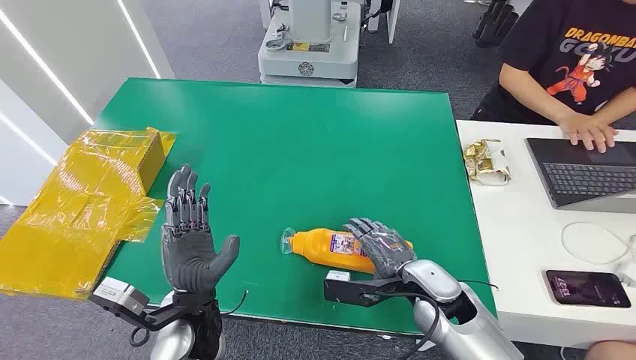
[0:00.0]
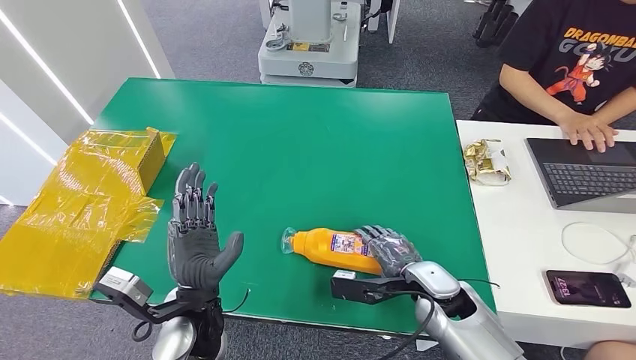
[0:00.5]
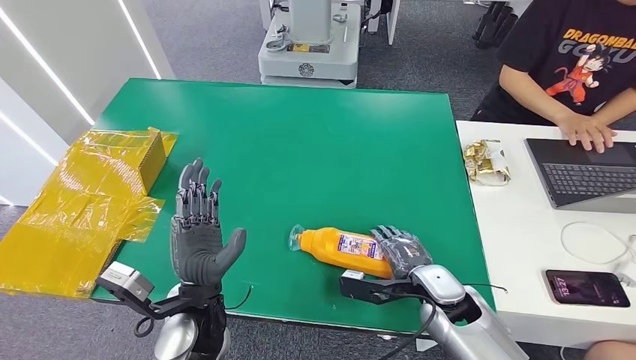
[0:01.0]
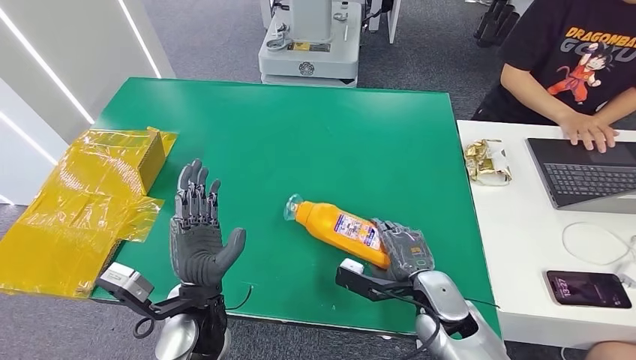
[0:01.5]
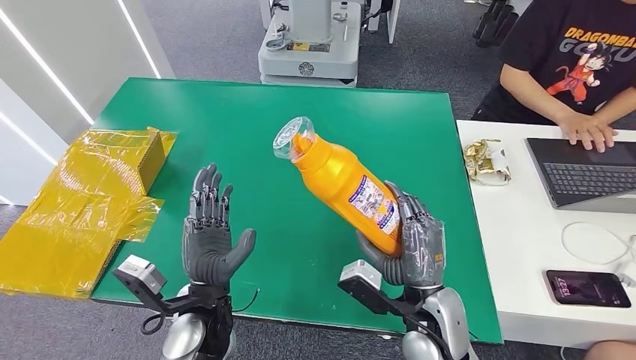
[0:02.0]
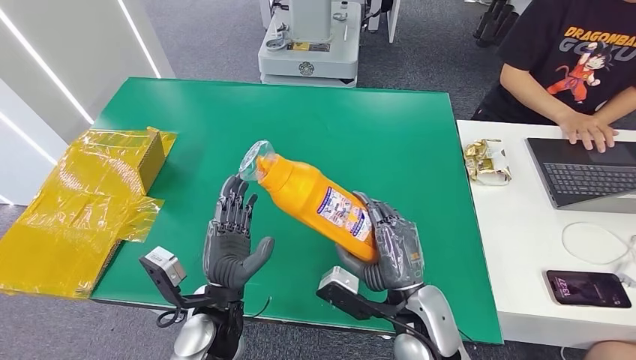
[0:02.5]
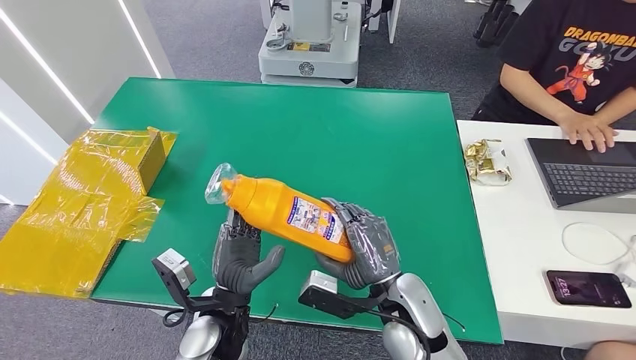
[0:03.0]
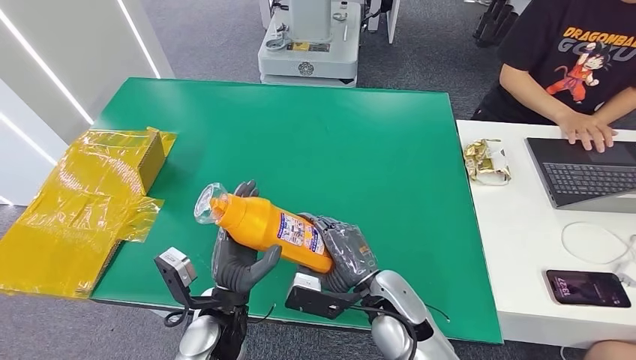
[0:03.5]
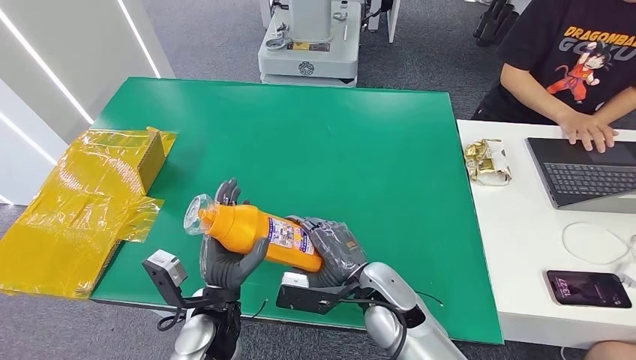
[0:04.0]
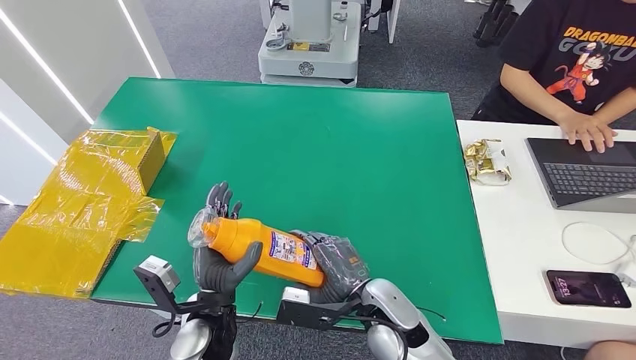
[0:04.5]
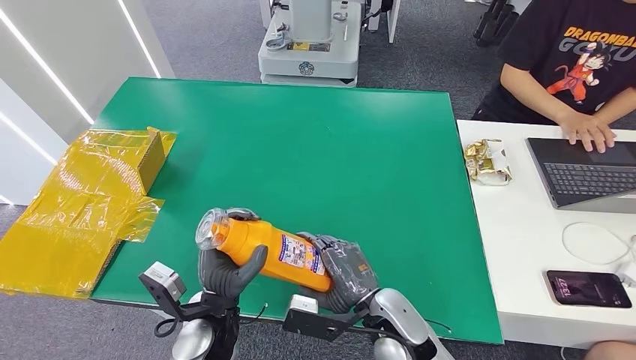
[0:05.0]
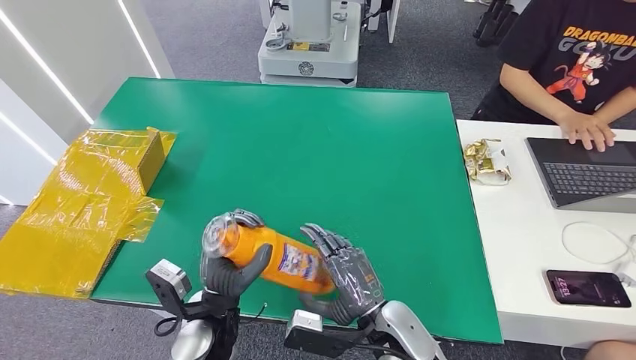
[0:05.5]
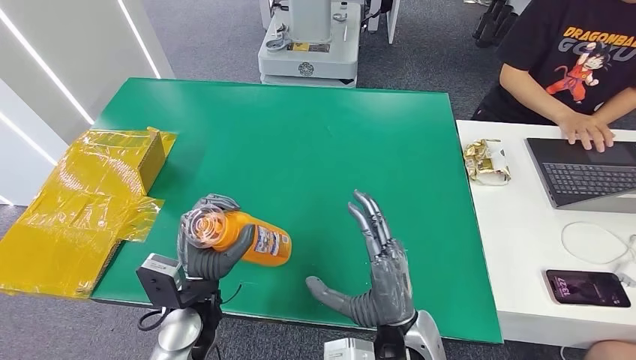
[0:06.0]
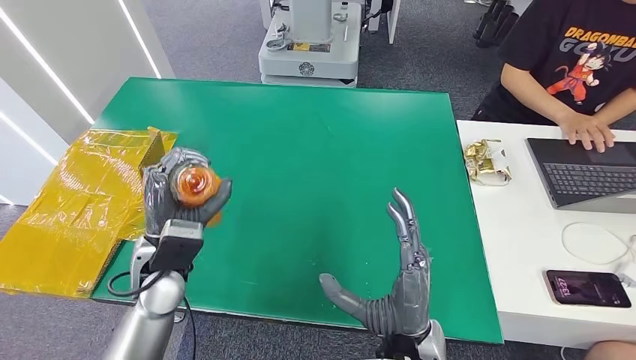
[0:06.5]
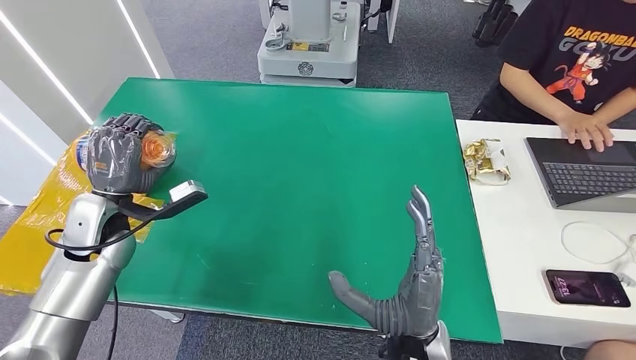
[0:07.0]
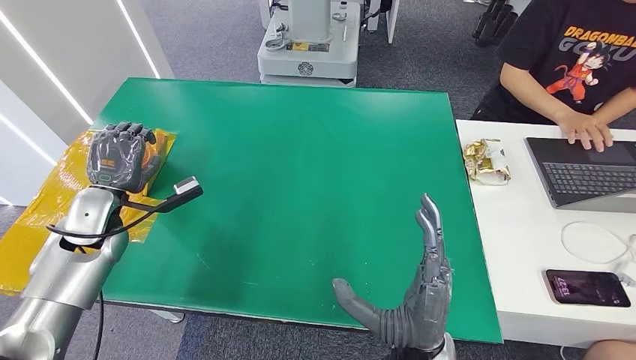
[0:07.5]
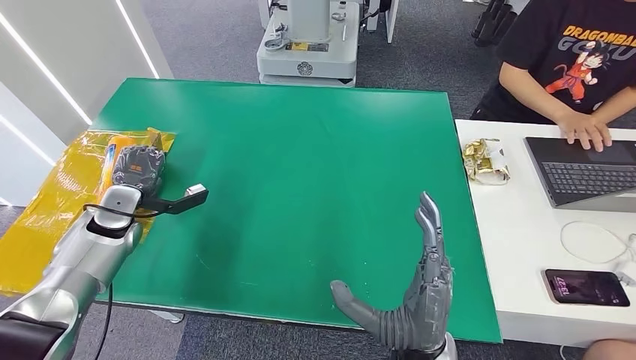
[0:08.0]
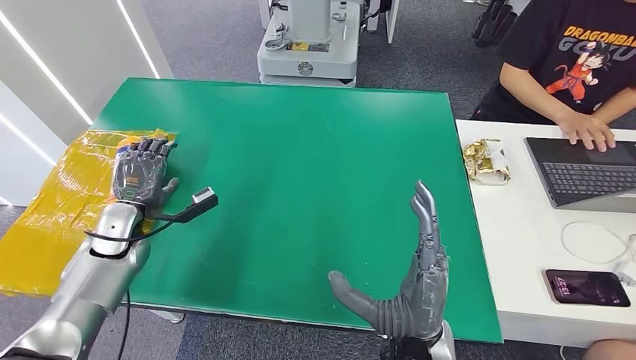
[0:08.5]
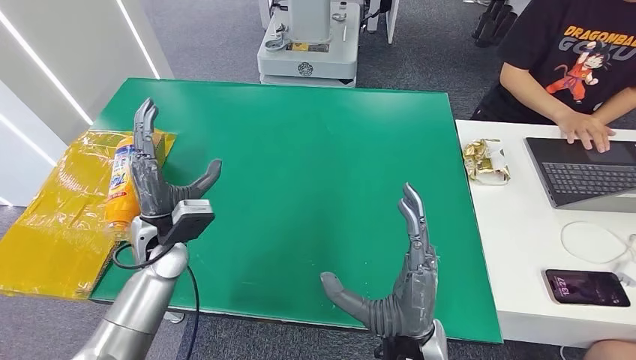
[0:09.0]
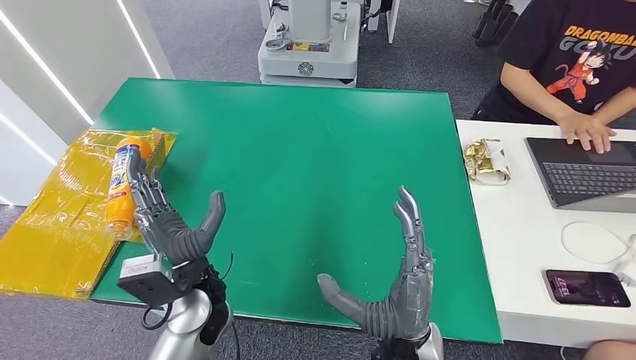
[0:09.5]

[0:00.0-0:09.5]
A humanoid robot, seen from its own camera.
Step, 0:00.0 to 0:03.0: Pick up the bottle from the table.
Step, 0:05.5 to 0:09.5: Turn the bottle to the front side.
0:02.0 to 0:04.0: The right hand is displaced to the left by roughly 5 cm.
0:04.0 to 0:05.5: The right hand goes about 5 cm backward.
0:05.5 to 0:07.5: The left hand travels to the left and forward by about 30 cm. The right hand shifts about 5 cm upward.
0:07.5 to 0:09.5: The left hand moves to the right and backward, approximately 25 cm.
